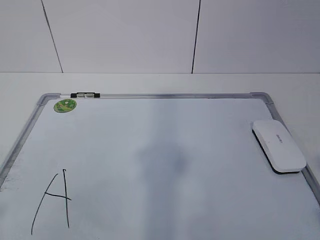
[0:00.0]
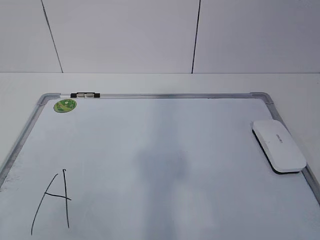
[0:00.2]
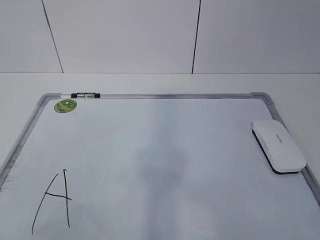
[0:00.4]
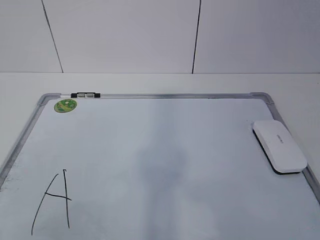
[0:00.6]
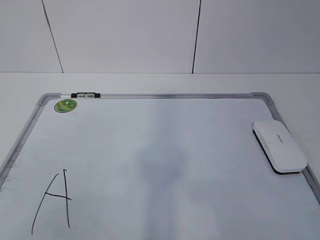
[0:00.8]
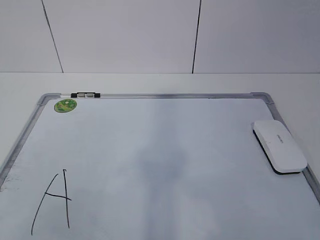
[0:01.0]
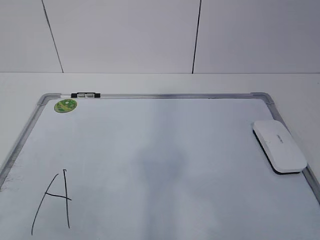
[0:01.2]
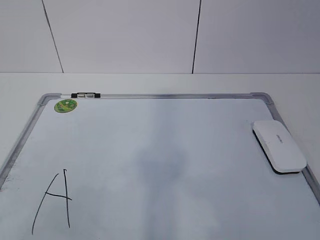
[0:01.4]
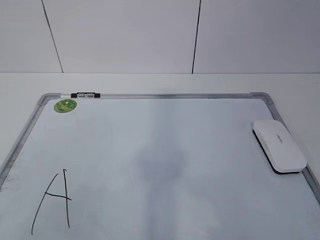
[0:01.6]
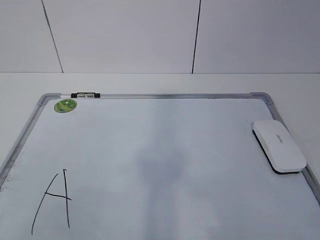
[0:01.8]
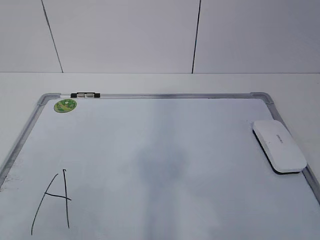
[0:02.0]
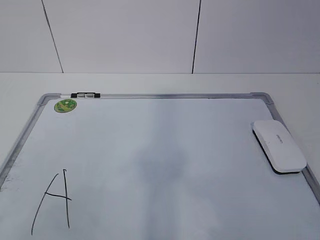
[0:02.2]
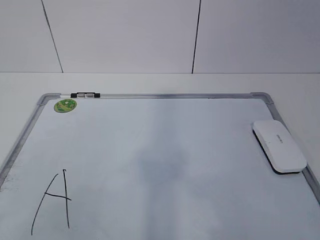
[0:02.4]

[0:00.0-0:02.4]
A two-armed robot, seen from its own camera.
Task of the whole recording: pick up the eraser on the blackboard and erase the letter "a".
0:01.2 to 0:02.4: Neither gripper changes place.
